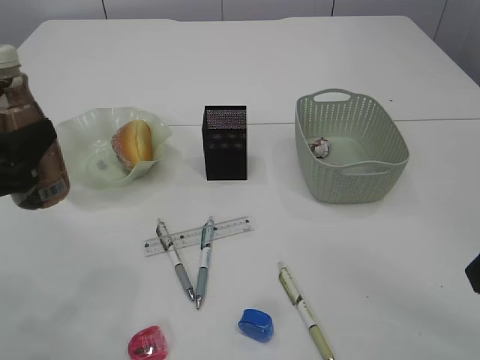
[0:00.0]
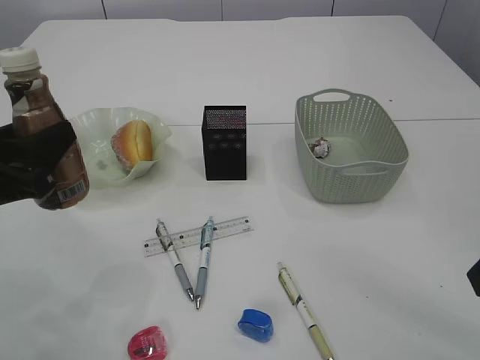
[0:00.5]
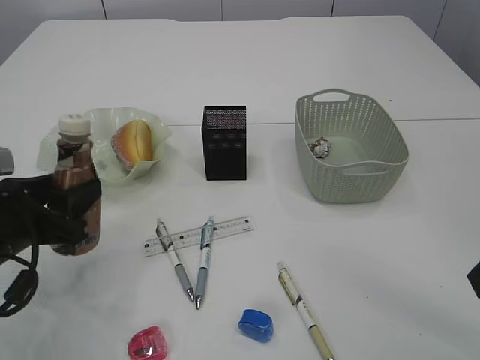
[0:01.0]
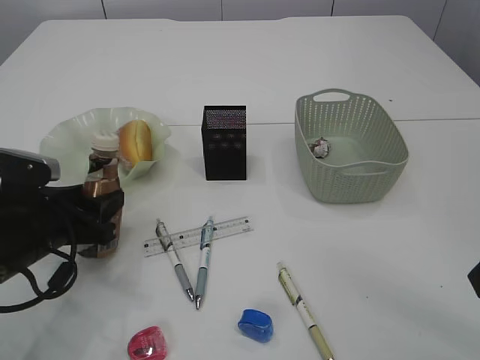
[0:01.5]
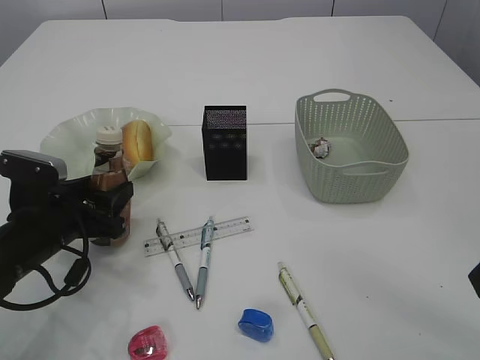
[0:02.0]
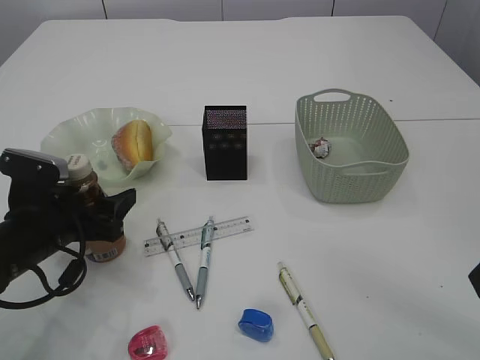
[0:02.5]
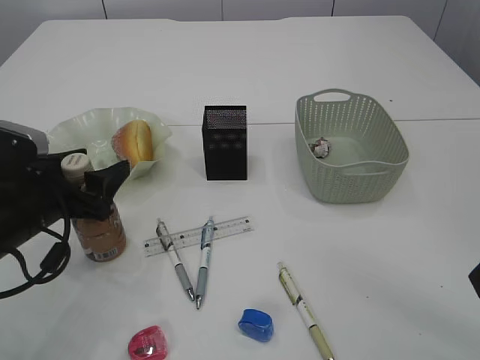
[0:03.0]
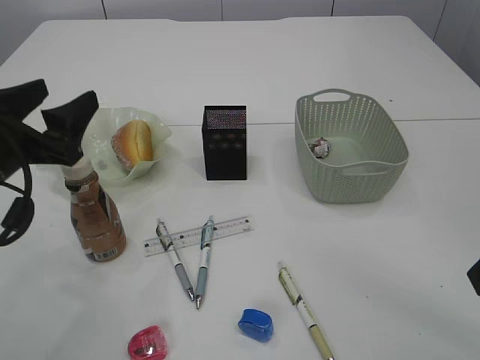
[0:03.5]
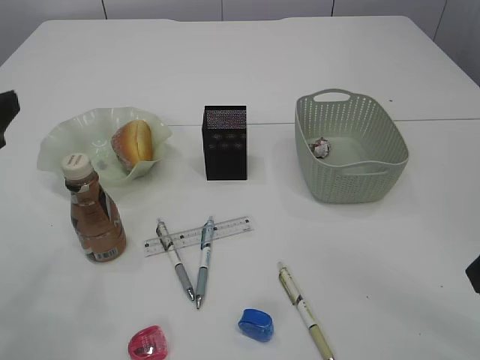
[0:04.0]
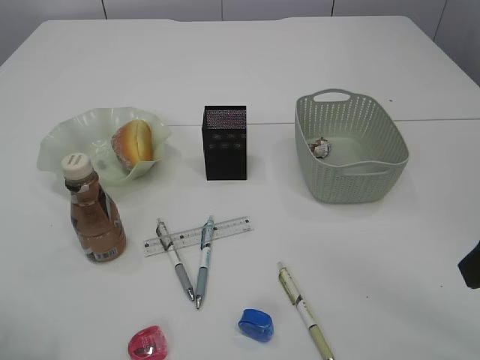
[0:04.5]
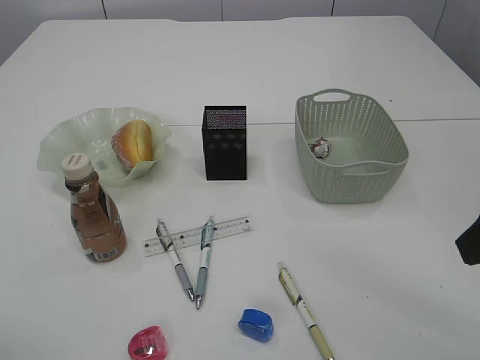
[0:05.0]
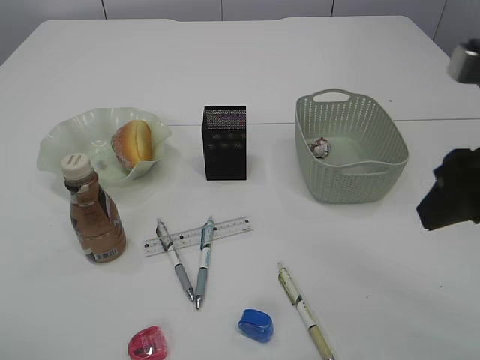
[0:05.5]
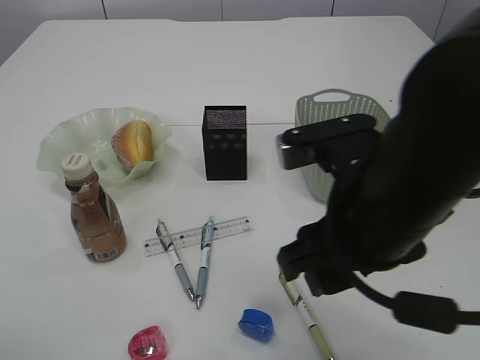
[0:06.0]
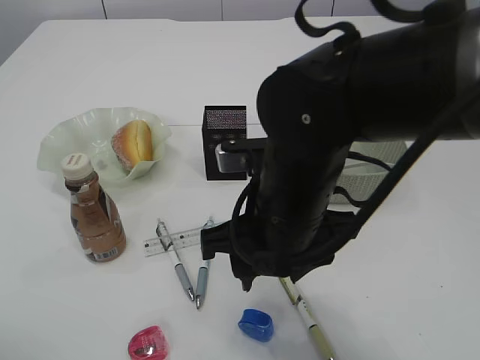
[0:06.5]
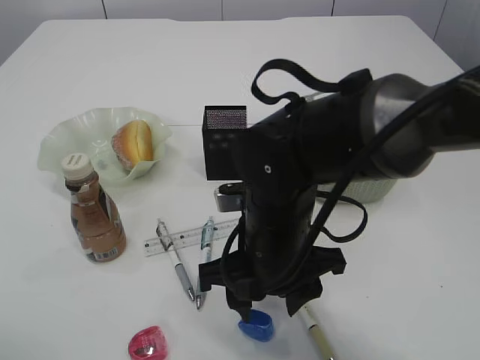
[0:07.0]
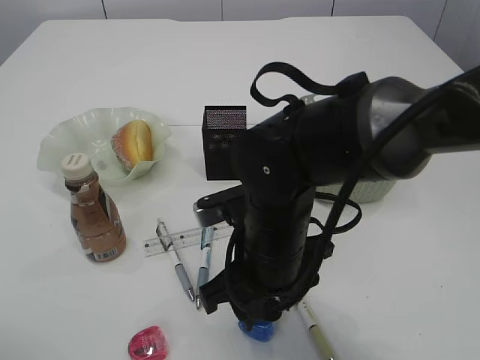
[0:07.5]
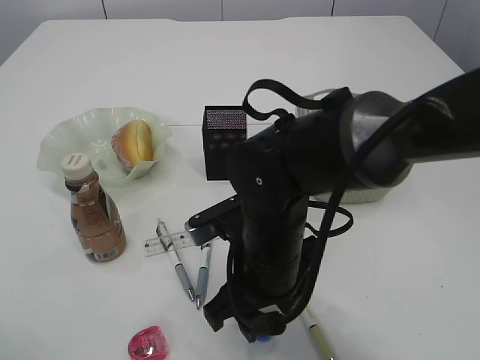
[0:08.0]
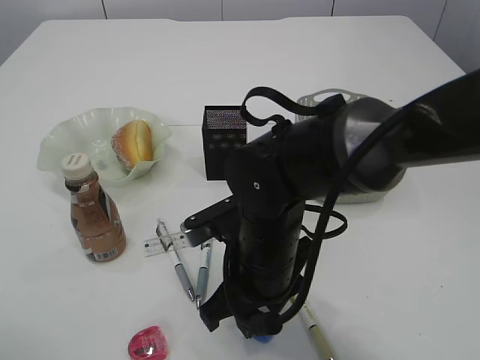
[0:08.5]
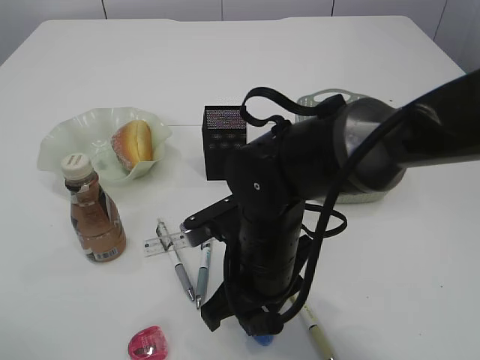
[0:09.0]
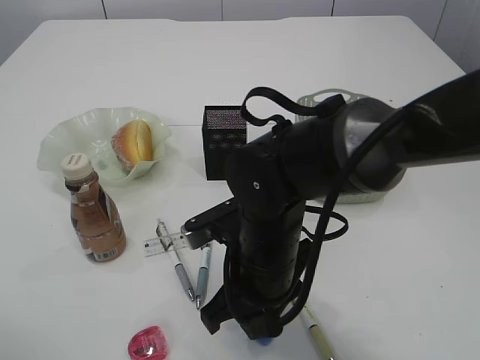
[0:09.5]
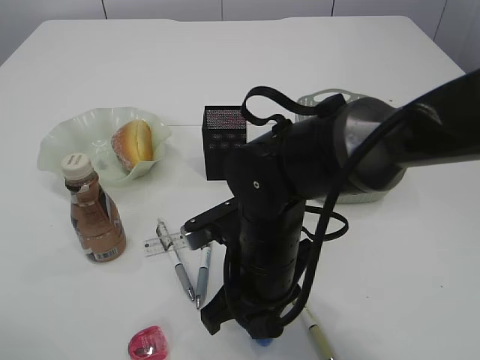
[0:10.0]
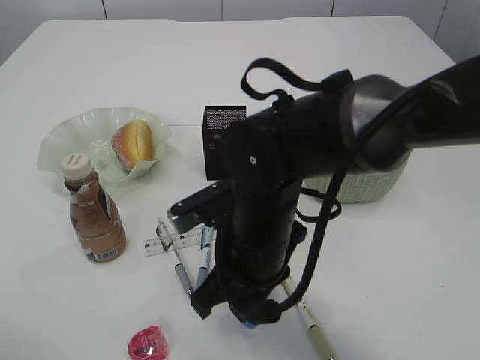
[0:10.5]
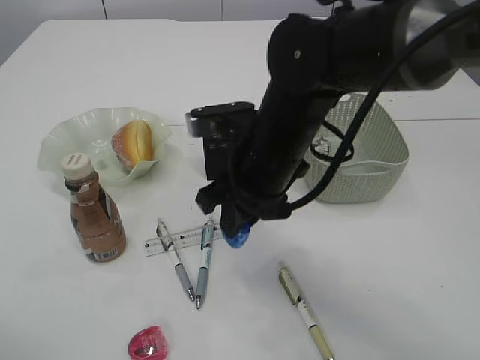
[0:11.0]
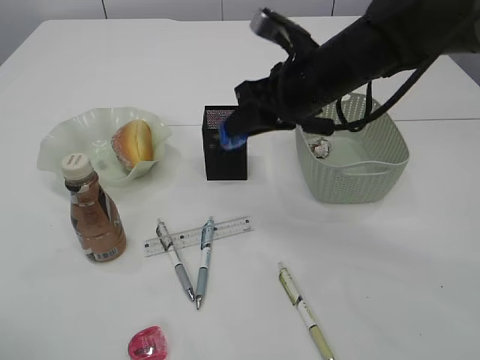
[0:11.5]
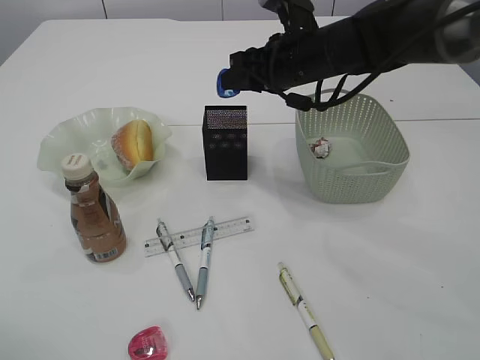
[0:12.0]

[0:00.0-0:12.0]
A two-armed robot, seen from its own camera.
Step, 0:00.0 to 0:03.0: Place the bottle.
Step, 0:03.5 to 0:10.5: Pick up the blue pencil sharpener.
0:00.0 to 0:02.0: The left gripper goes some 15 cm downward and forward.
0:02.0 to 0:04.0: The left gripper travels upward and to the left by about 15 cm.
0:04.0 to 0:06.0: The right gripper shifts approximately 15 cm to the left, while the left gripper heads backward and upward, covering approximately 10 cm.
0:06.0 to 0:08.0: The right gripper goes roughly 15 cm downward, to the left and forward.
0:08.0 to 0:10.0: The right gripper closes its fingers.
0:10.0 to 0:12.0: The right gripper is displaced forward, upward and to the right by some 25 cm.

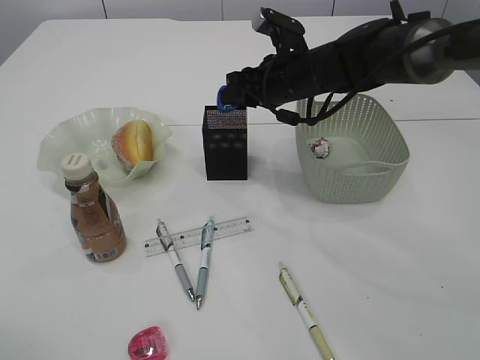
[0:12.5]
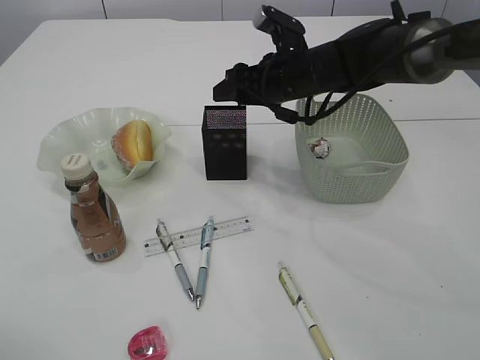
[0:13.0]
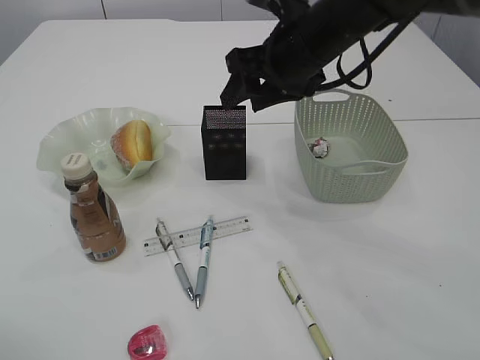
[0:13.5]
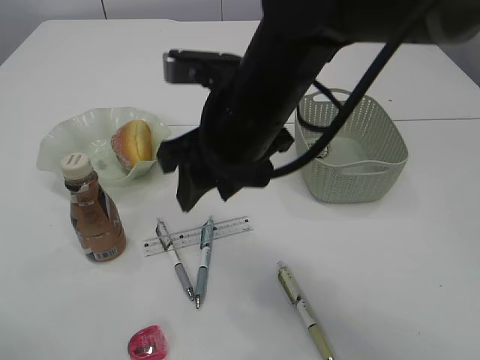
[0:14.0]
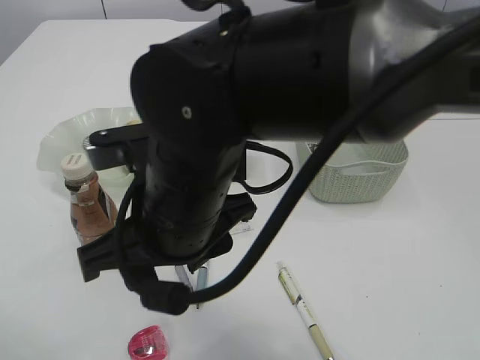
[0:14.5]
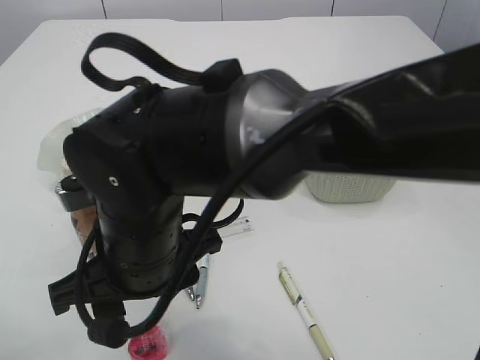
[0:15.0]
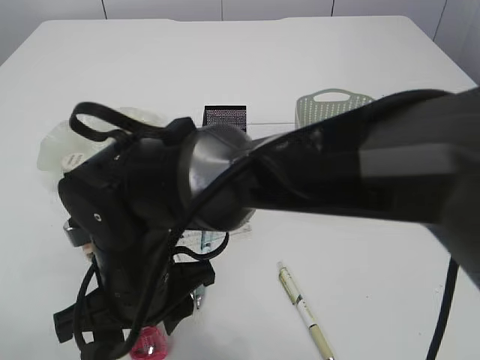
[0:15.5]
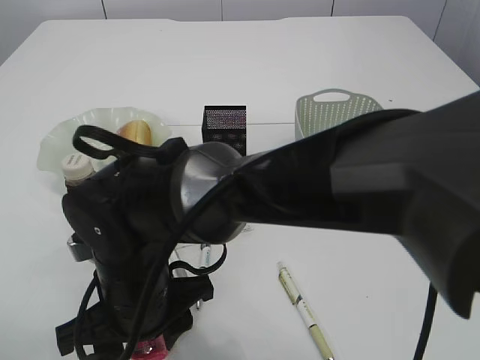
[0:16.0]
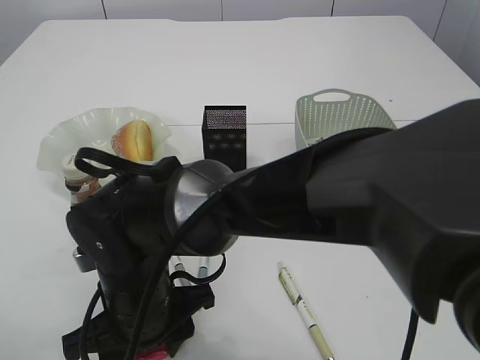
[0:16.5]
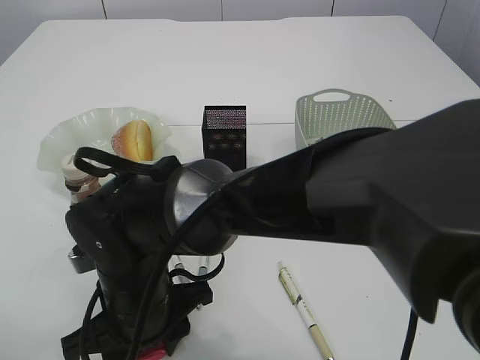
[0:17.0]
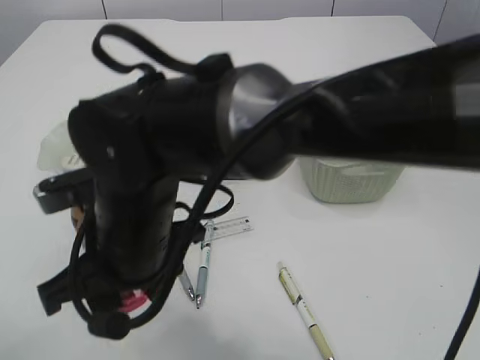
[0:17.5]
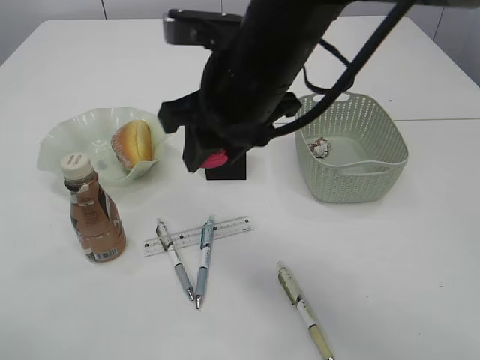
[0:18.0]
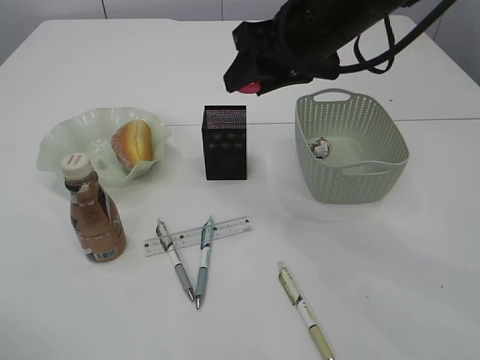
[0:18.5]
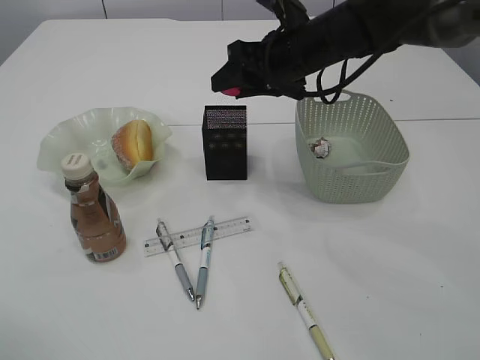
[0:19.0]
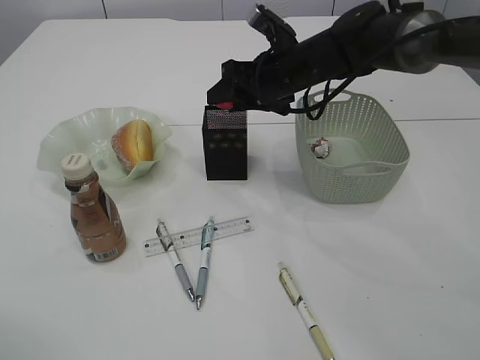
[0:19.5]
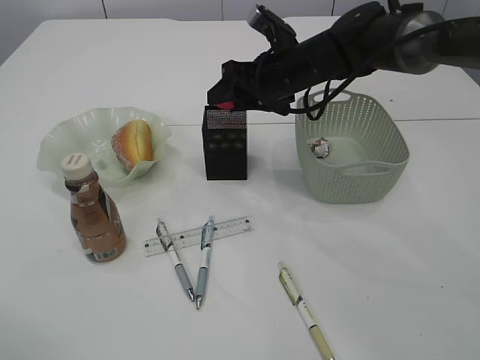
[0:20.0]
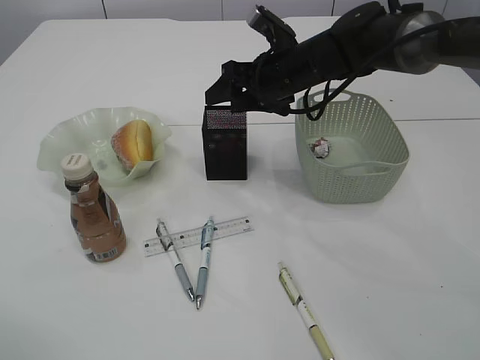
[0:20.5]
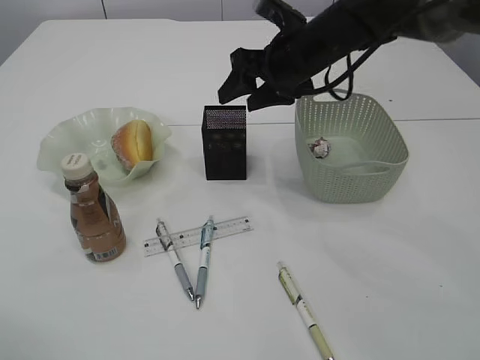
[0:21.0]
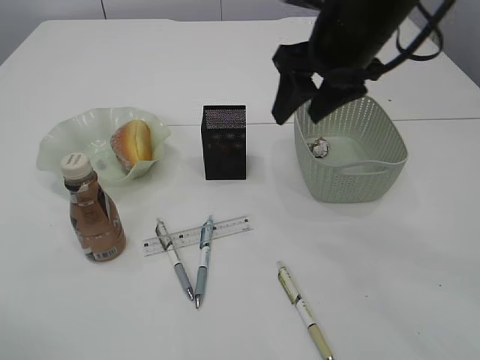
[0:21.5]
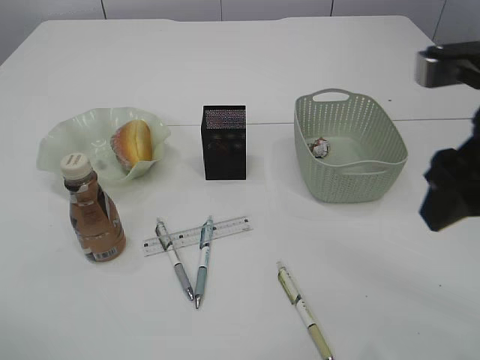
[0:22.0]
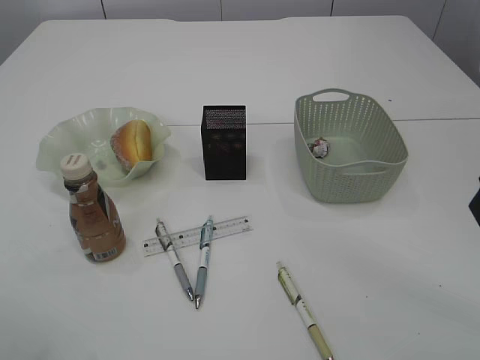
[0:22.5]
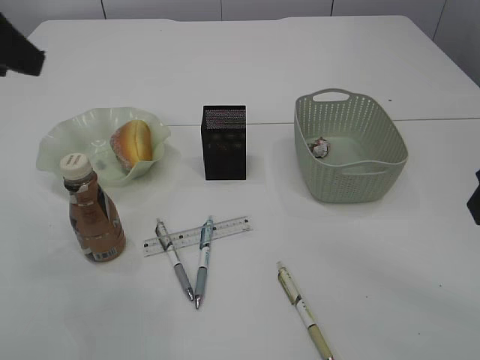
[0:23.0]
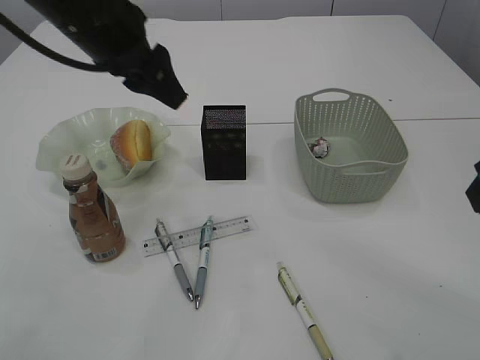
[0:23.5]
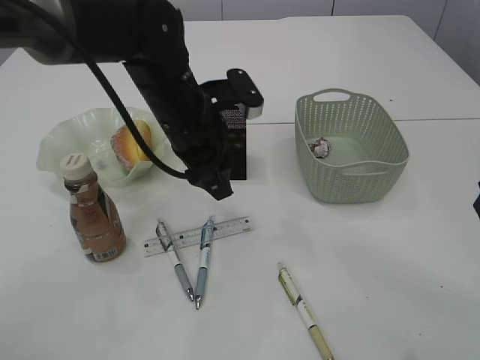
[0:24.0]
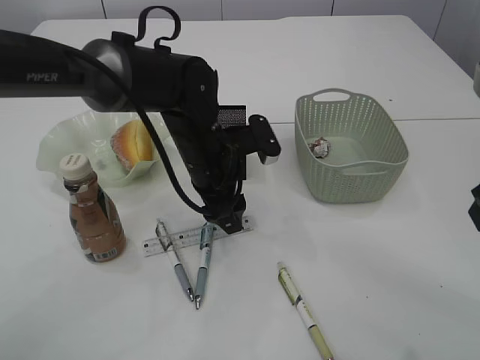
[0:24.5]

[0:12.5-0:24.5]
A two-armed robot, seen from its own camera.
Step, 0:13.5 to 0:17.5: Pick up the red pencil sharpener.
Step, 0:18.0 to 0:20.5: Place the red pencil sharpener into the pen holder.
0:12.5 to 0:14.5: The right gripper is displaced backward and to the left by roughly 30 cm, and opens its fingers.
0:14.5 to 0:16.5: The right gripper is displaced downward and to the left by some 15 cm.
0:16.5 to 0:18.5: The right gripper travels to the right, upward and forward by roughly 30 cm.
0:18.5 to 0:20.5: The right gripper is displaced forward and downward by roughly 15 cm.
0:20.5 to 0:22.5: The right gripper shifts approximately 30 cm backward and to the right.
0:22.5 to 0:24.5: The left gripper heads to the right, forward and downward, covering some 35 cm.

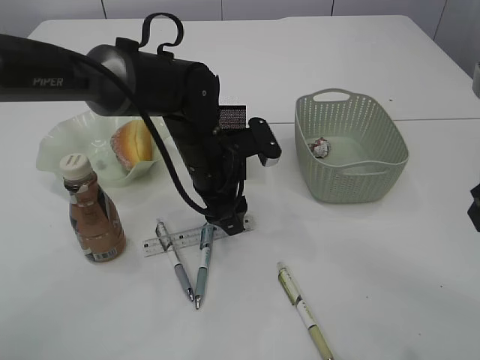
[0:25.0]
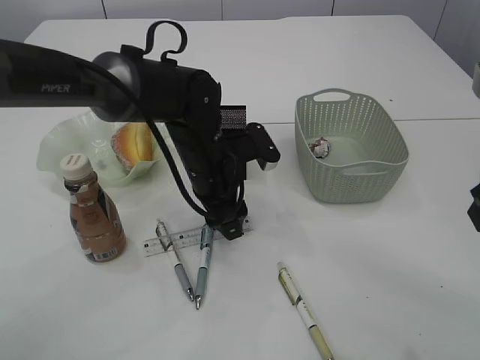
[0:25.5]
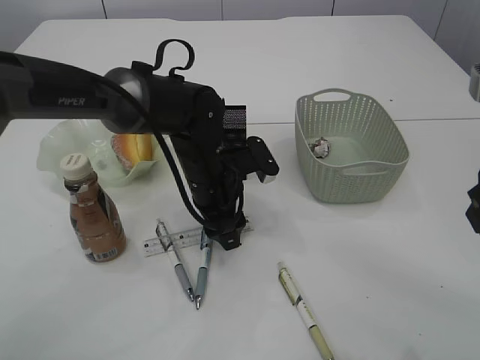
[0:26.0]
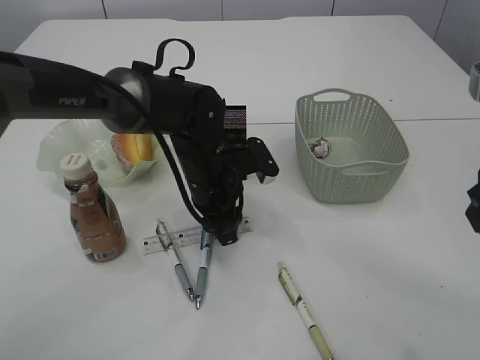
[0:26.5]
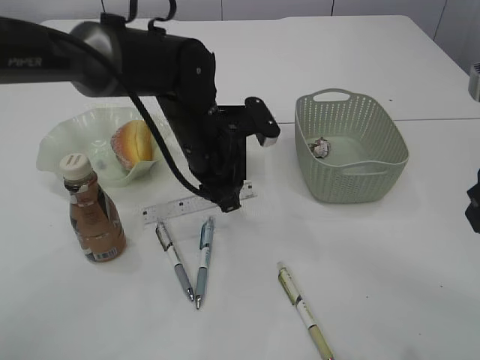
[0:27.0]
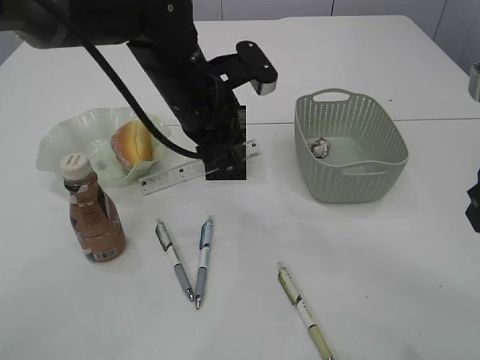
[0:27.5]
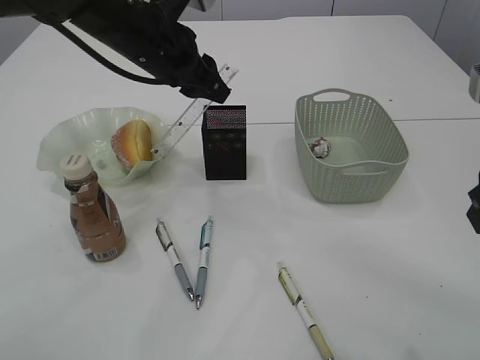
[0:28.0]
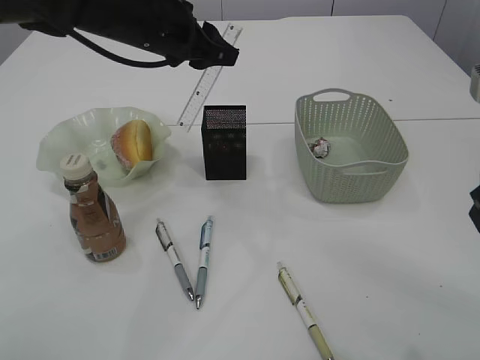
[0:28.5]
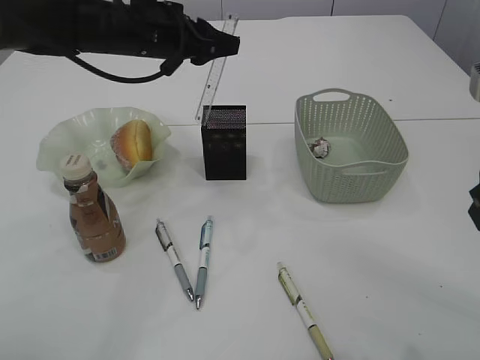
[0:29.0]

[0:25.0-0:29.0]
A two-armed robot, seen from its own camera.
Step, 0:25.0 to 0:27.5: pick up the ruler.
0:25.0 to 0:27.0: The left gripper closes.
0:27.0 to 0:29.0: The left gripper moves upward, forward and to the left, some 15 cm.
